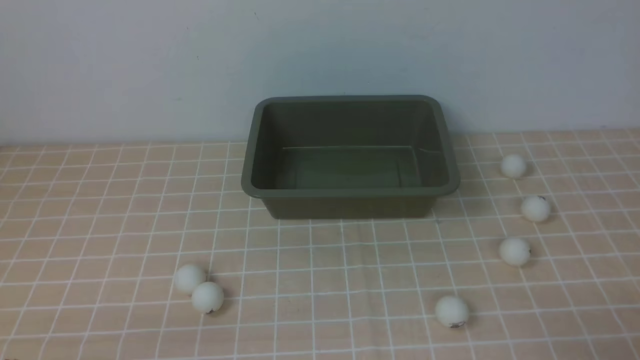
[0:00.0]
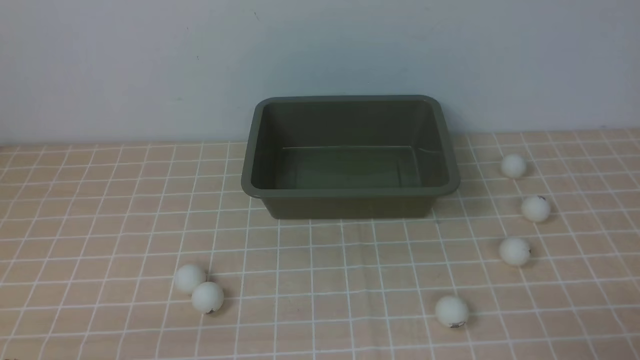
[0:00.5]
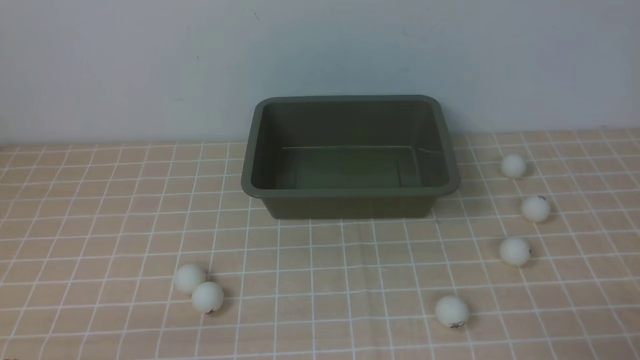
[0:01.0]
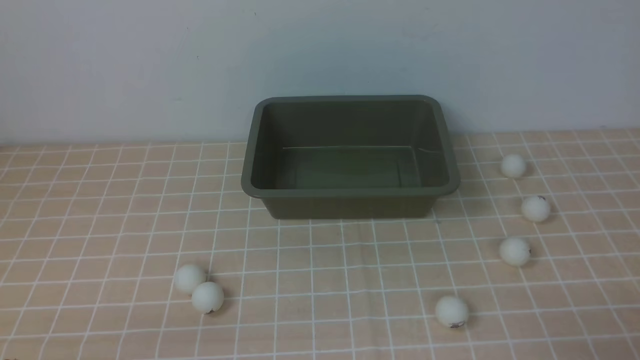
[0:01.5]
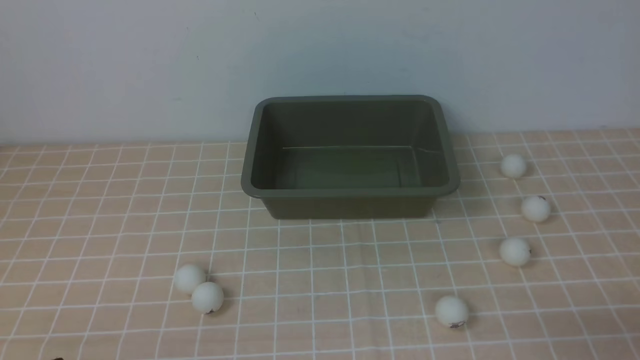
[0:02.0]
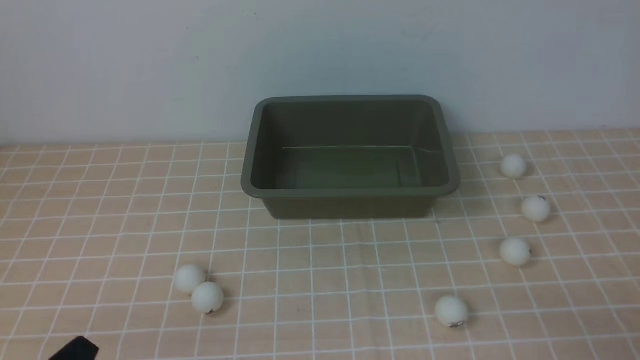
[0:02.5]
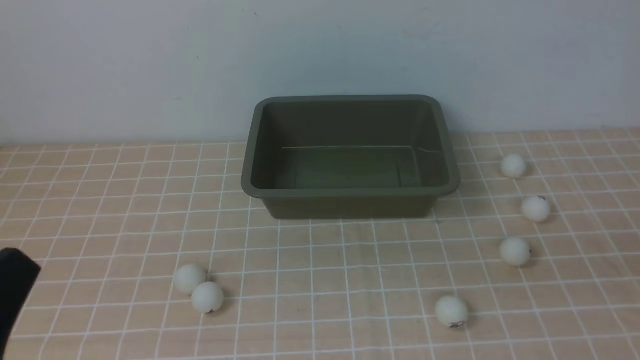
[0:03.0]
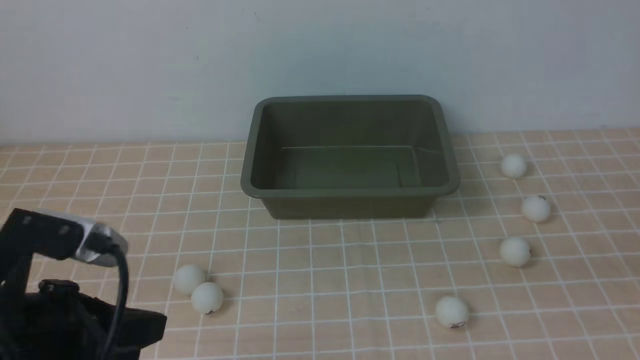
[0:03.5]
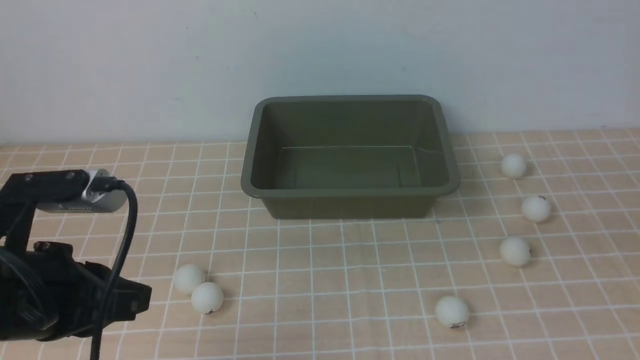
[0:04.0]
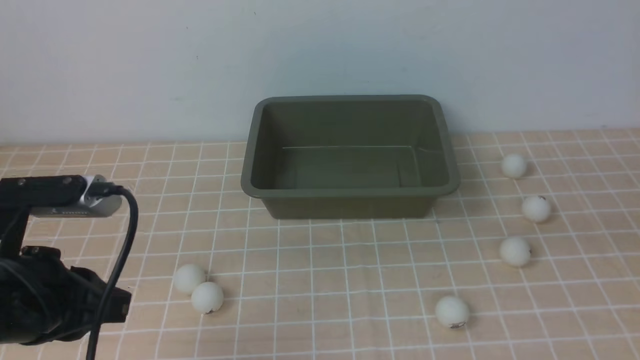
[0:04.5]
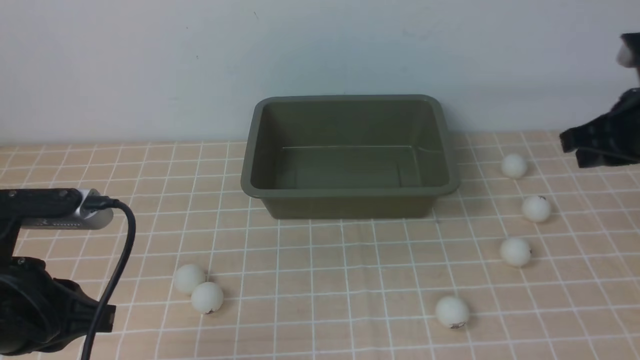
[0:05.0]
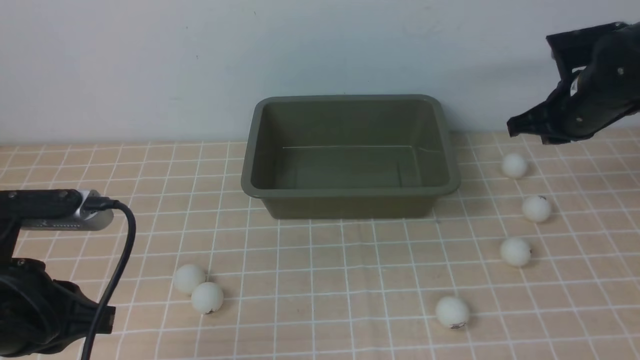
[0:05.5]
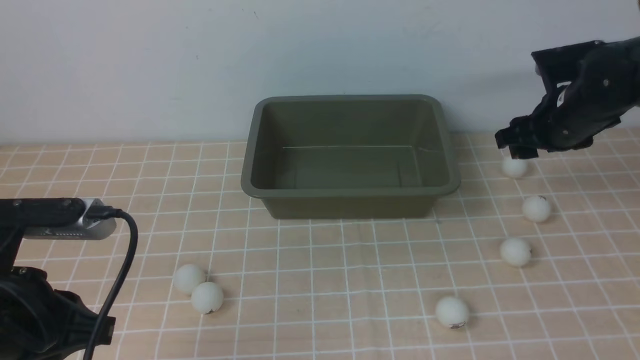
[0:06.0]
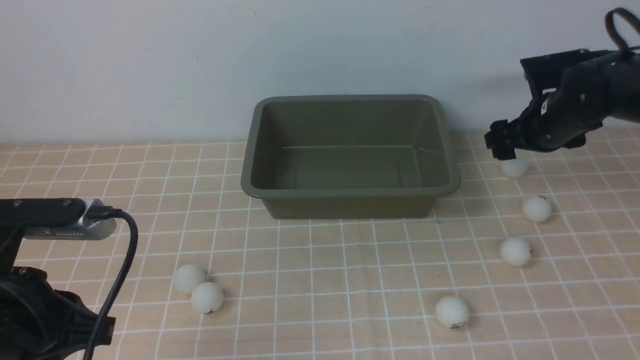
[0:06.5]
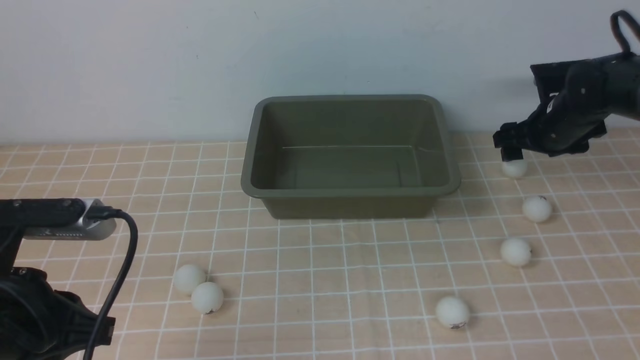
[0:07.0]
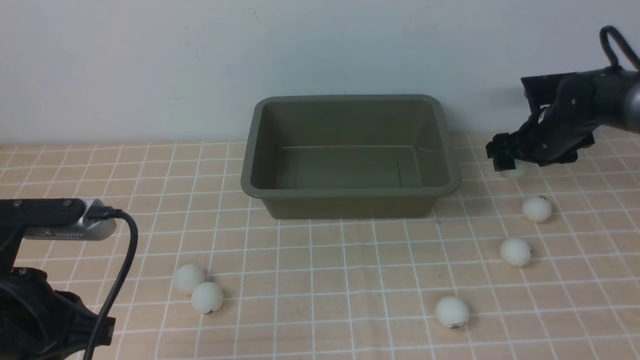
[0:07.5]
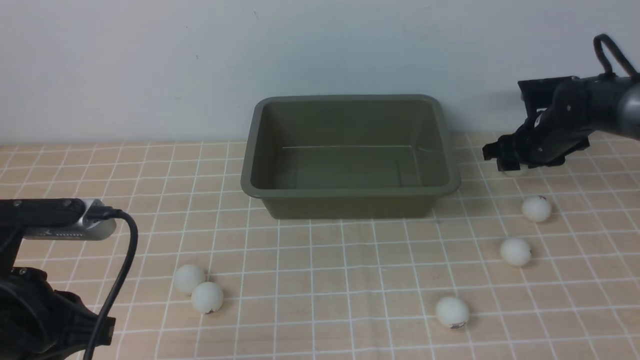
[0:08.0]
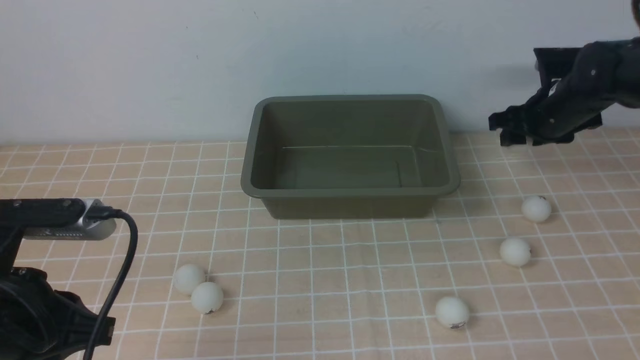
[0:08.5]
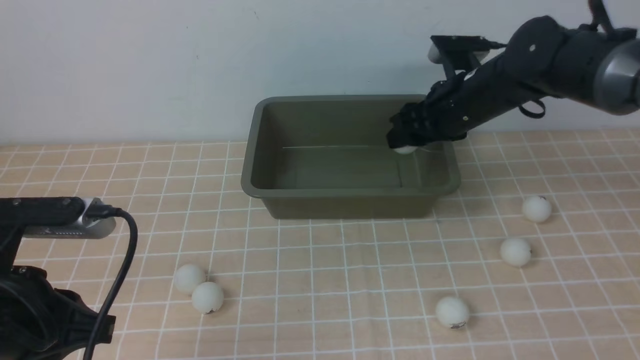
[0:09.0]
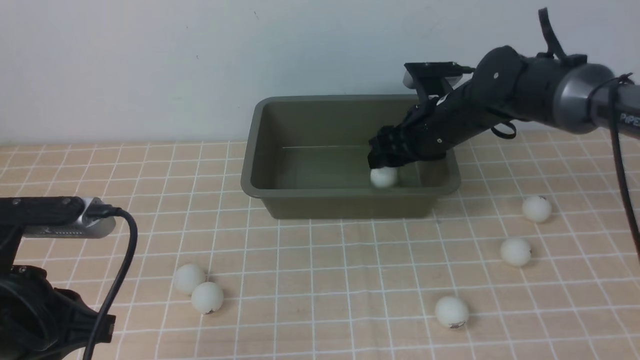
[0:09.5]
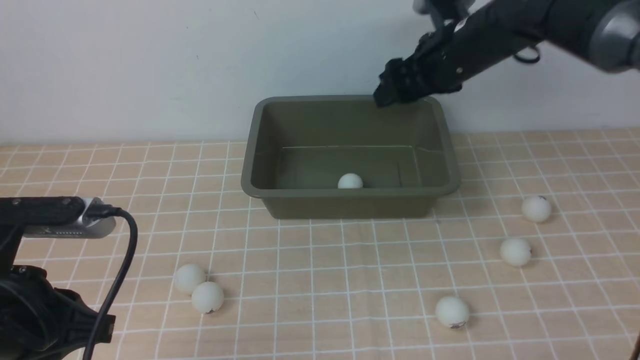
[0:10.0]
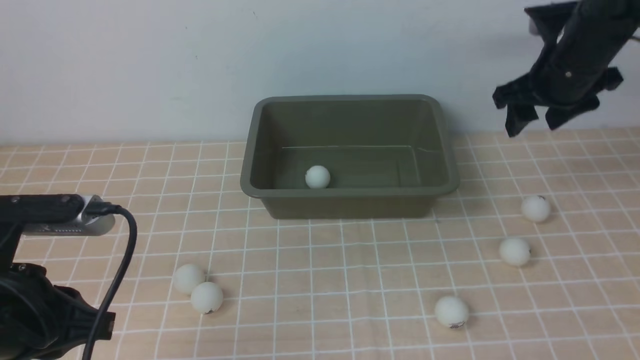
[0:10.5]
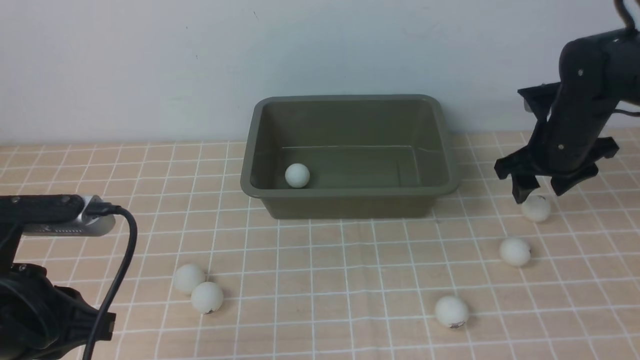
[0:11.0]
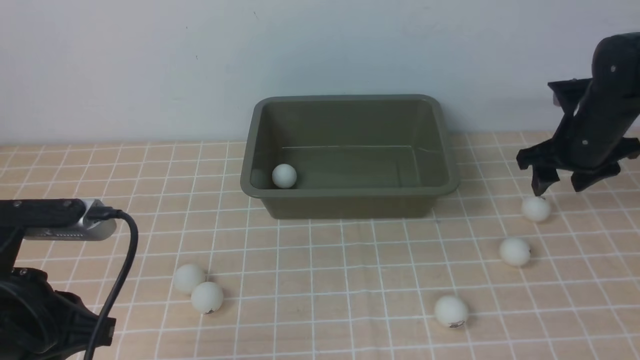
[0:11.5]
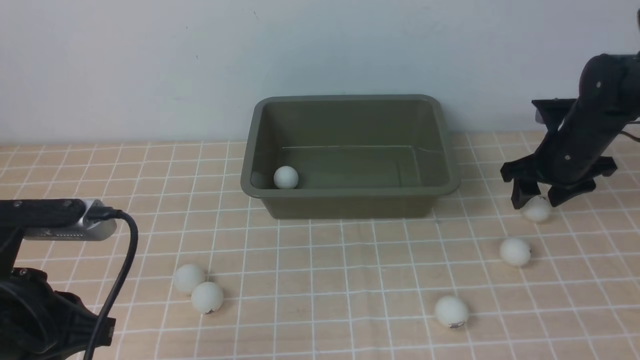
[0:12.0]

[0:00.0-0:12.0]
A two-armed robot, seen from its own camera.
Step, 0:00.0 to 0:08.0: use the right arm to clamp the table tennis ball closest to it.
Step, 0:08.5 to 0:09.5: use the right arm to put the table tennis ball into the box.
0:02.0 to 0:04.0: The left gripper is displaced forward and upward by about 15 cm; the right gripper goes approximately 15 cm upward and forward.
0:04.0 to 0:06.0: The right gripper is displaced forward by approximately 30 cm, and opens its fingers.
0:06.0 to 0:08.0: The right gripper moves downward and forward, about 10 cm.
0:08.0 to 0:10.0: The right gripper is displaced to the left and upward by approximately 20 cm.
0:10.0 to 0:12.0: The right gripper shifts approximately 15 cm to the right and downward.

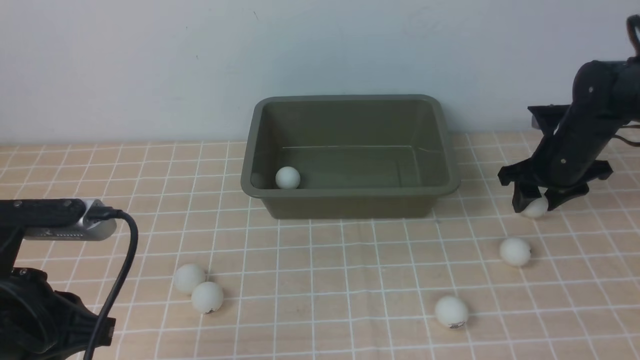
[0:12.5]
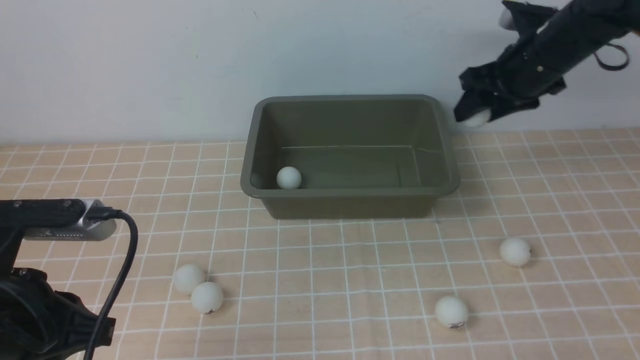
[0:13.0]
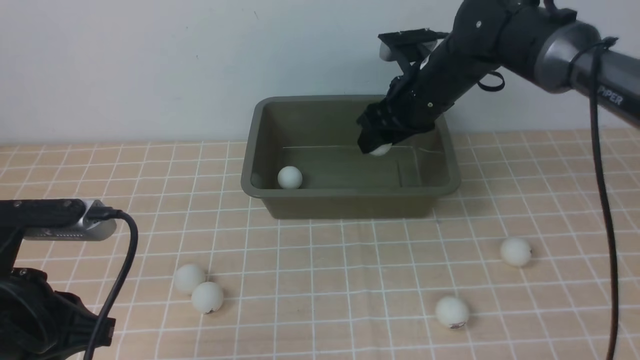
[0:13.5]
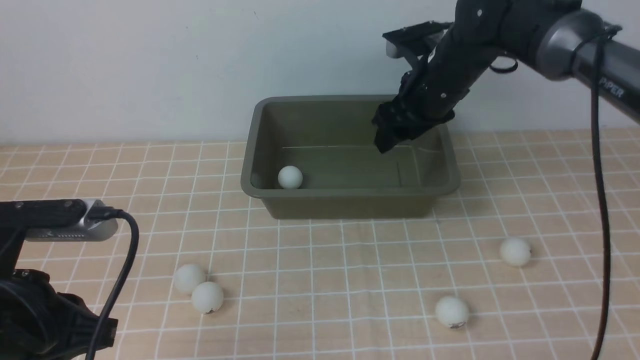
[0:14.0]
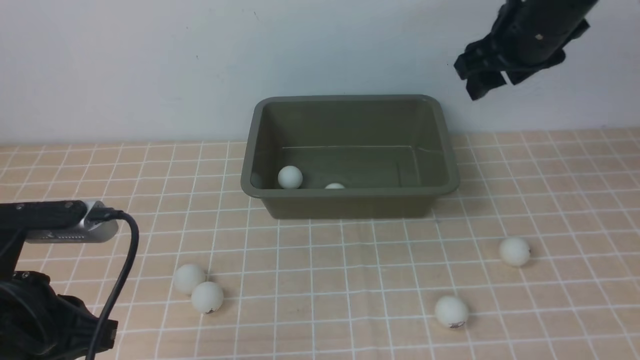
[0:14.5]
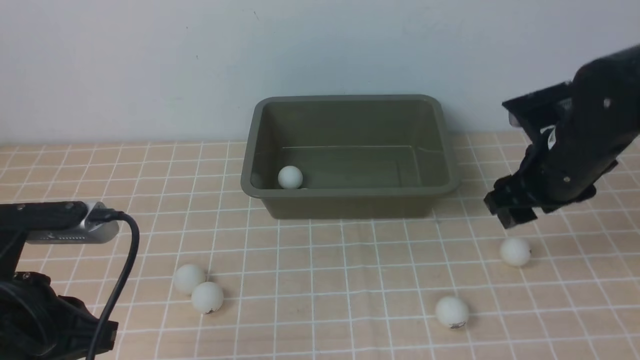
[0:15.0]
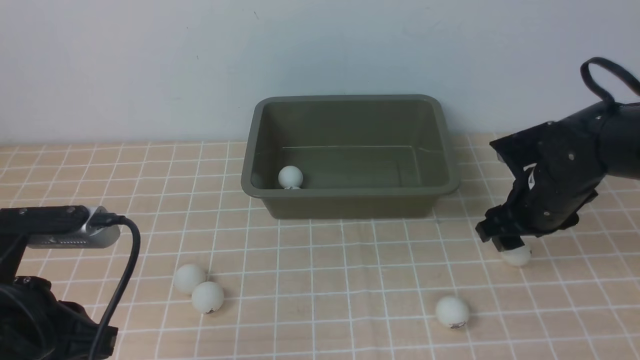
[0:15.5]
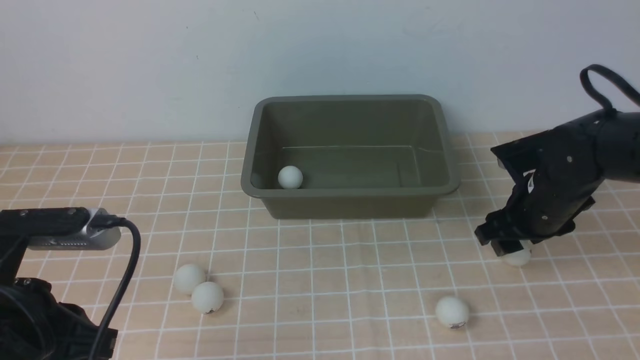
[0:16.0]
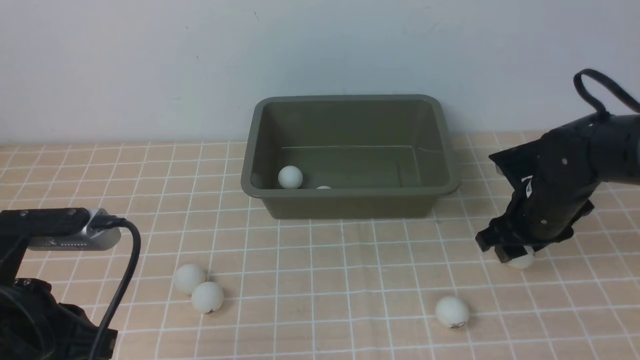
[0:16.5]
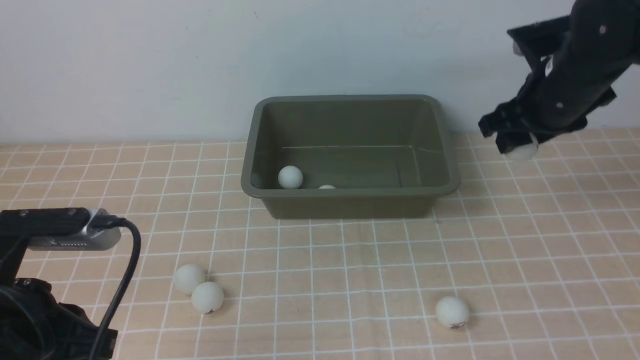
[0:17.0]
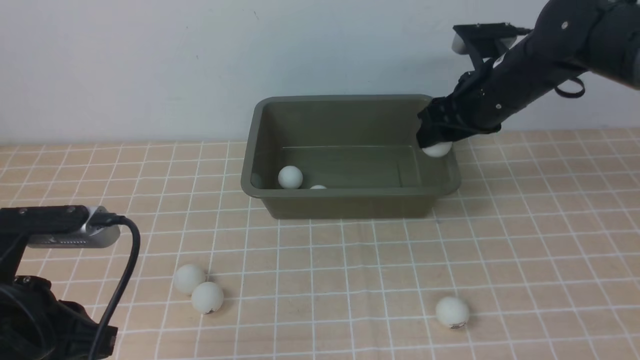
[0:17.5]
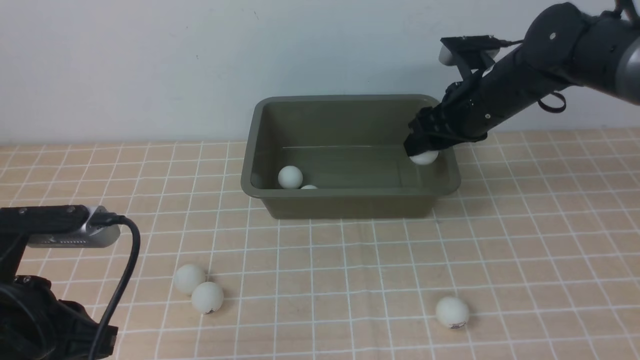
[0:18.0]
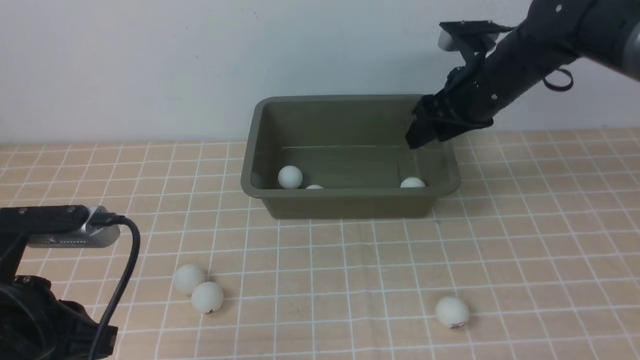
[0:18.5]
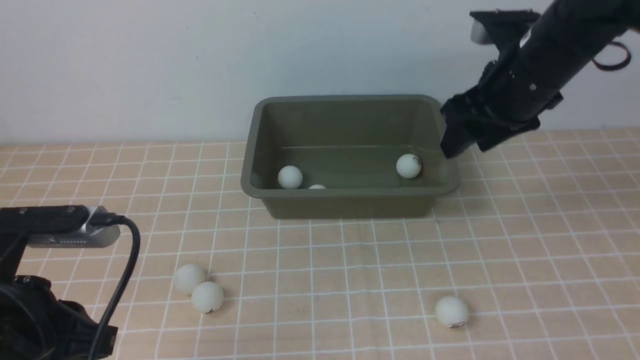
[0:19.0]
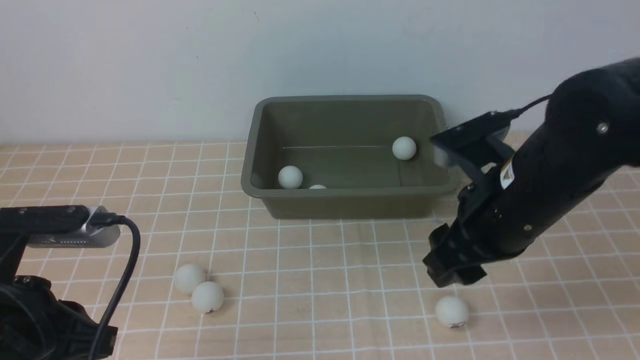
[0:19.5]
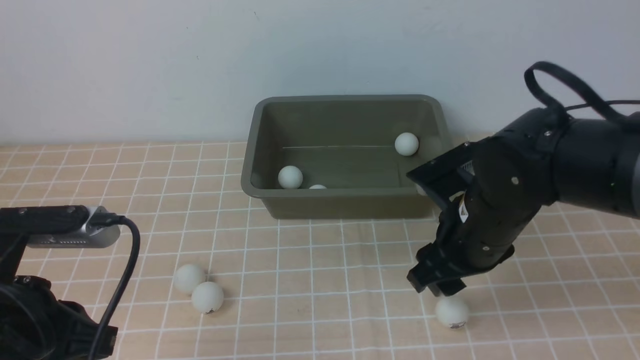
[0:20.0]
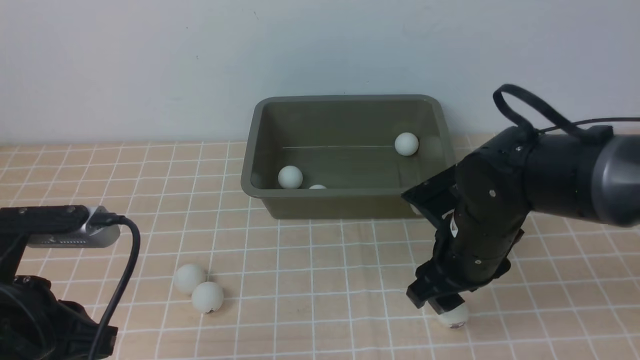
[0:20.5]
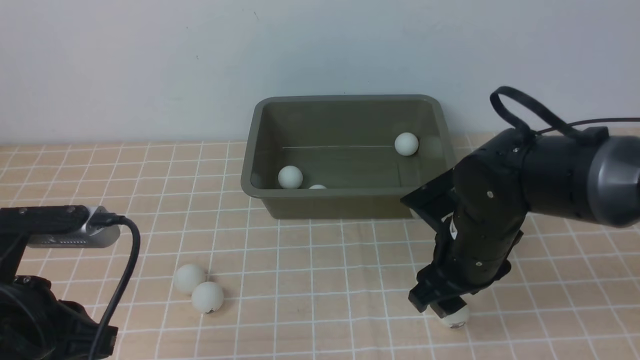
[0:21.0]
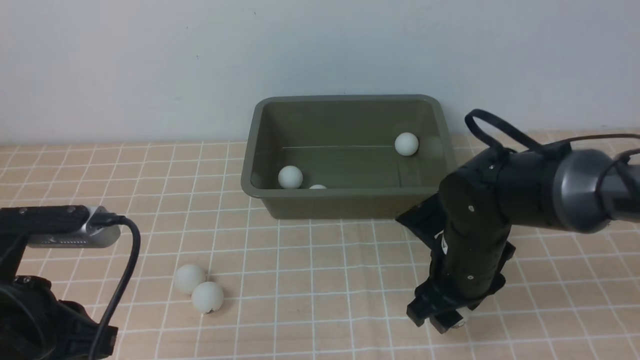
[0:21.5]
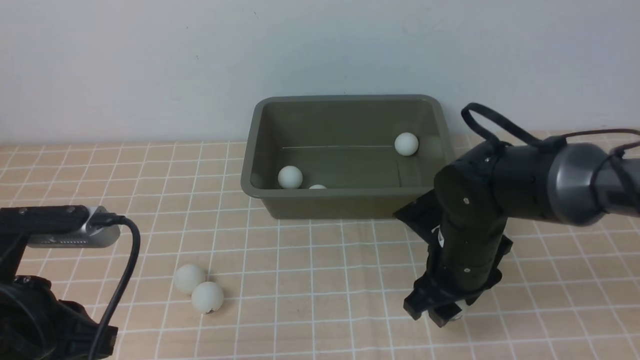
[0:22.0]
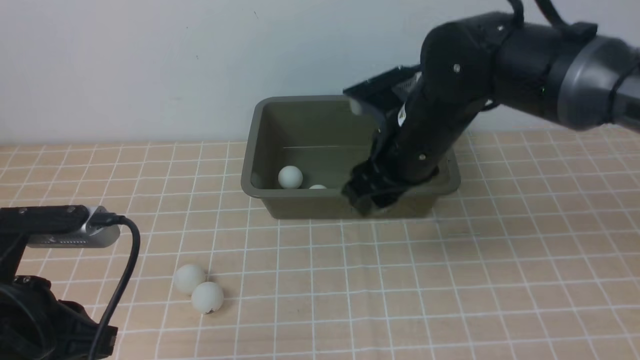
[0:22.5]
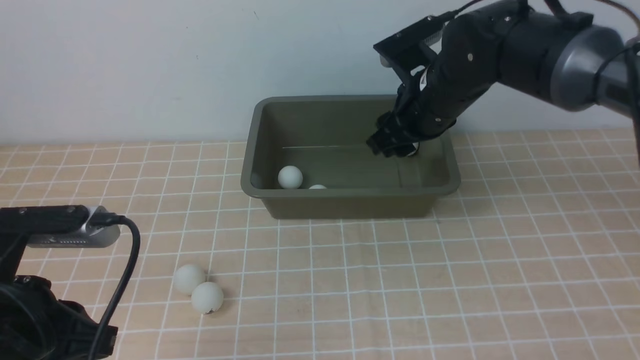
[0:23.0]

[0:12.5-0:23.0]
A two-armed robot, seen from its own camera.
Step, 0:13.0 to 0:13.5: use the right arm to put the table tennis ball into the box.
Step, 0:14.5 to 0:16.5: use the right arm to clamp the table tennis ball closest to it.
Step, 0:17.5 to 0:18.0: use the right arm to put the table tennis ball into the box.
Step, 0:18.5 to 0:22.0: use the right arm to clamp the table tennis ball closest to it.
0:12.5 to 0:14.5: The right gripper is displaced upward and to the left by about 20 cm.
0:14.5 to 0:16.5: The right gripper moves downward and backward, about 20 cm.
0:16.5 to 0:19.0: The right gripper is displaced upward by some 15 cm.
0:19.0 to 0:21.0: The right gripper travels downward, backward and to the left by roughly 15 cm.
0:21.0 to 0:23.0: The right gripper is displaced forward and upward by roughly 15 cm.
